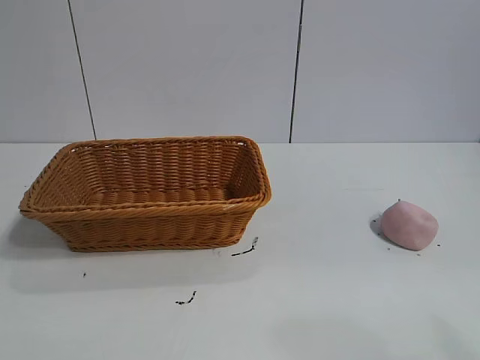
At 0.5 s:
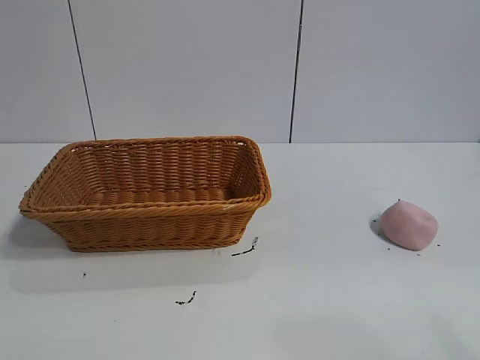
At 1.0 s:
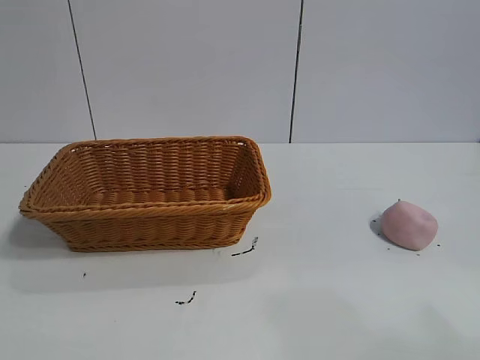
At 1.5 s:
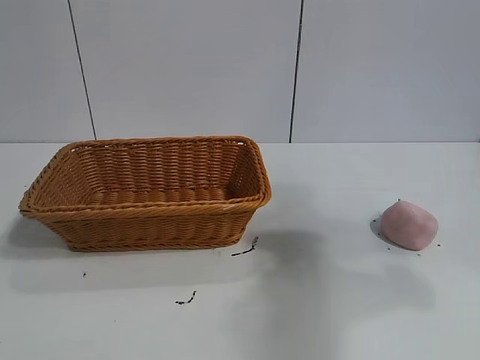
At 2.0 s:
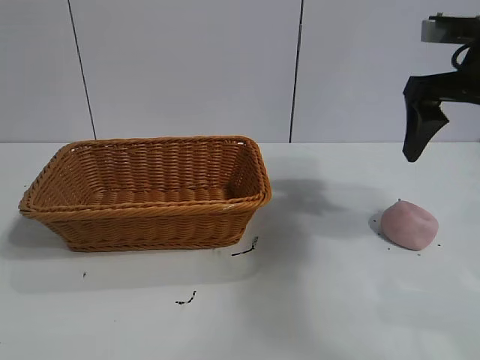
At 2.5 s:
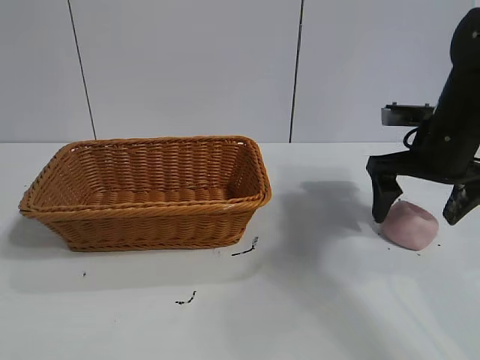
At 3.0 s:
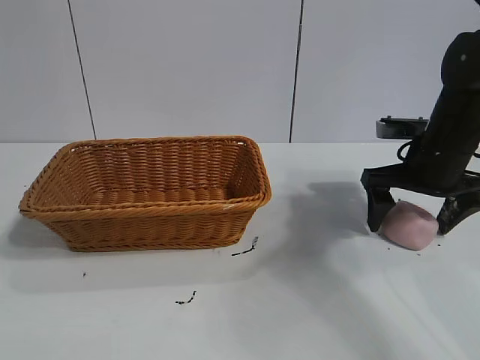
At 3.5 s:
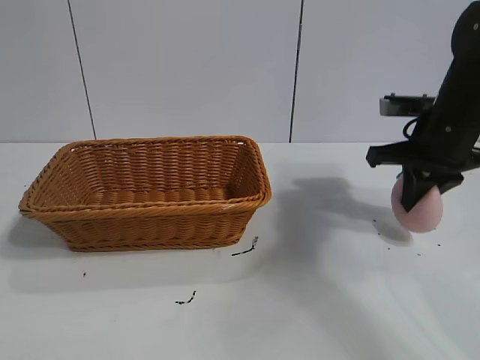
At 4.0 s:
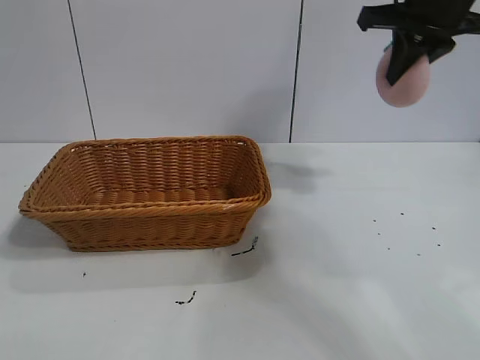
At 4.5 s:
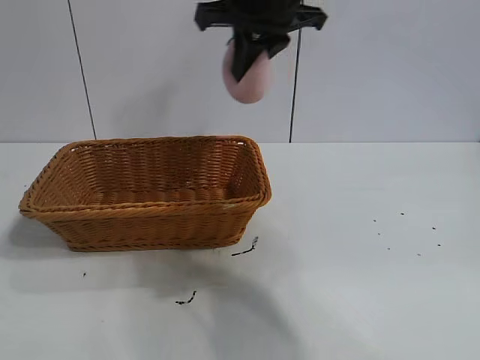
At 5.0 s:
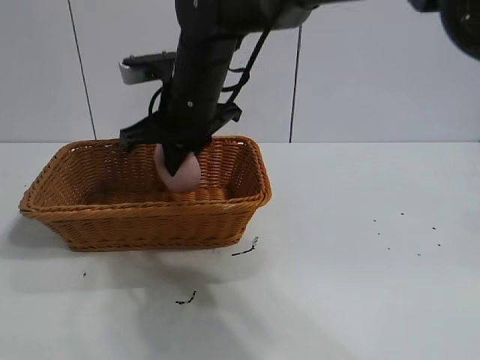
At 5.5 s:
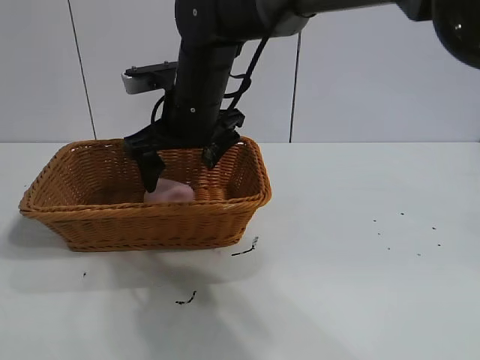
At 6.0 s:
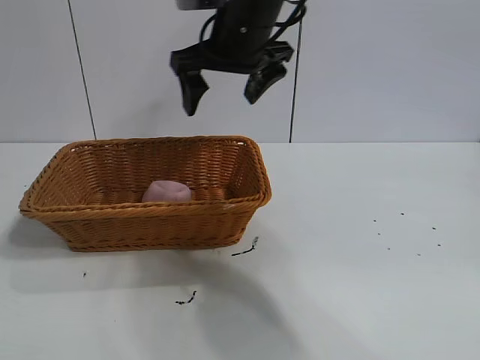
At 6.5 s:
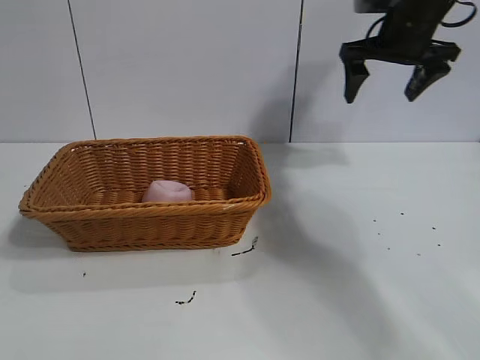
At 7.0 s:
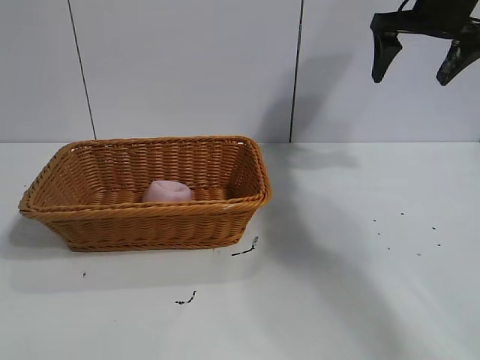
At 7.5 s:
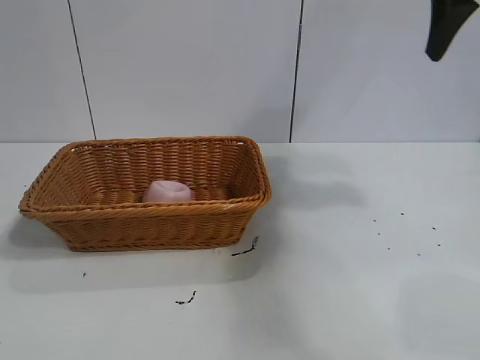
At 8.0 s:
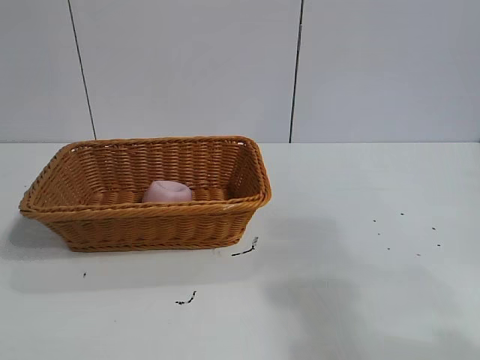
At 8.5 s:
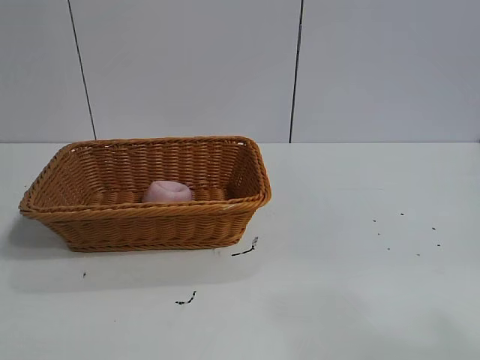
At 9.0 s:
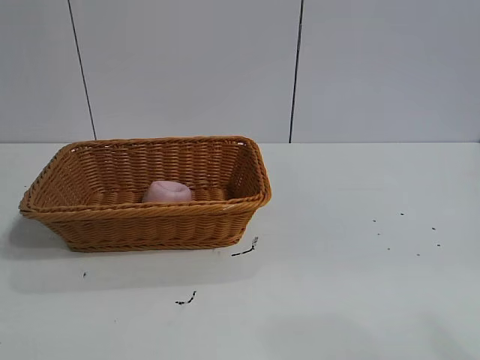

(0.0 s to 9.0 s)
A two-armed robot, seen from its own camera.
Task of the whole recording: pick up the peach and put it into the basket.
Step, 1.0 s - 3.0 s: Grasp the peach with right gripper.
Step, 3.5 s - 5.0 s: Place the peach in the basket with right gripper.
